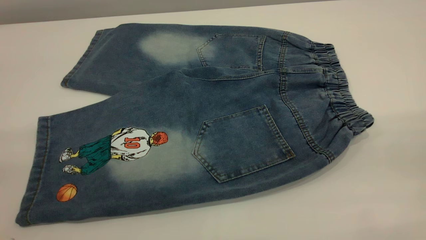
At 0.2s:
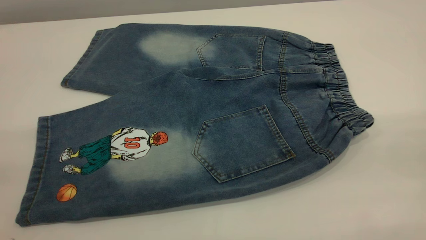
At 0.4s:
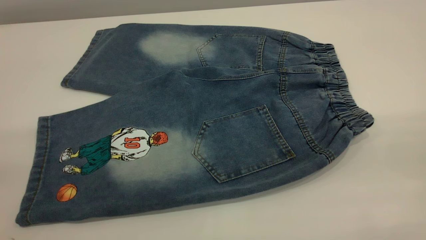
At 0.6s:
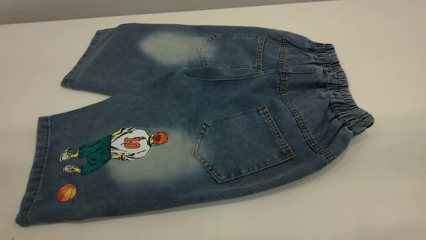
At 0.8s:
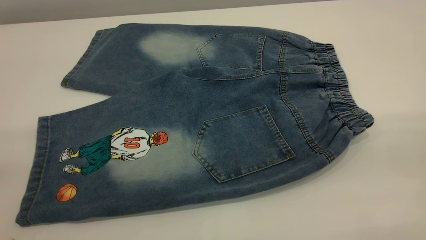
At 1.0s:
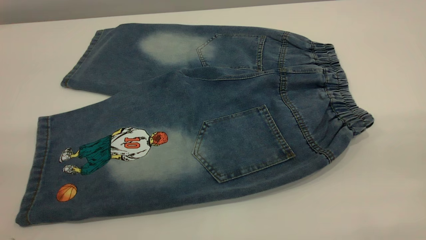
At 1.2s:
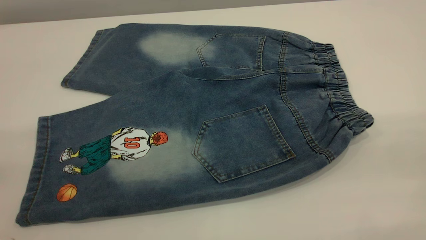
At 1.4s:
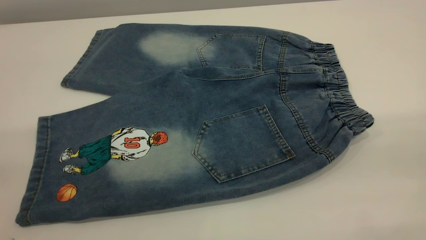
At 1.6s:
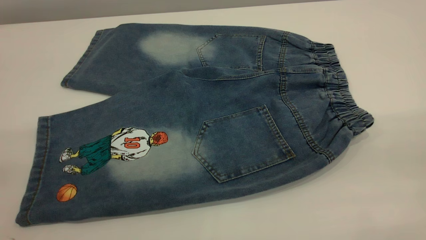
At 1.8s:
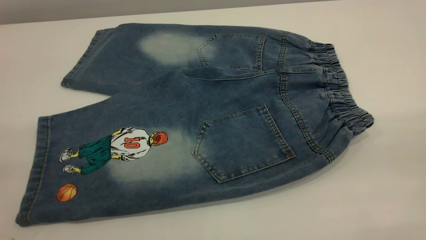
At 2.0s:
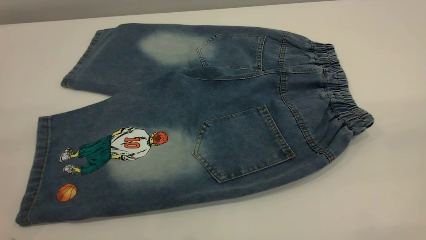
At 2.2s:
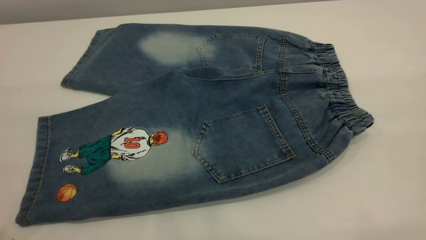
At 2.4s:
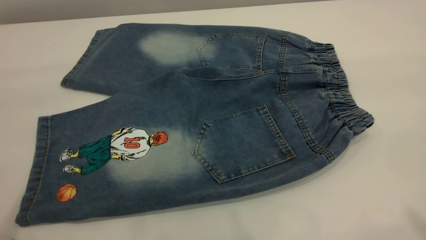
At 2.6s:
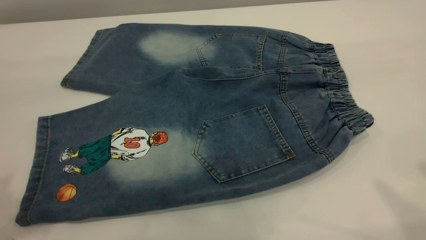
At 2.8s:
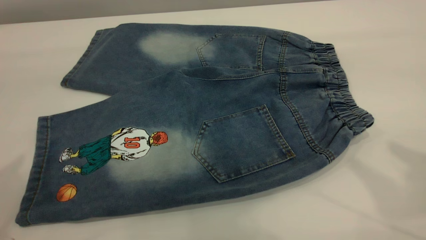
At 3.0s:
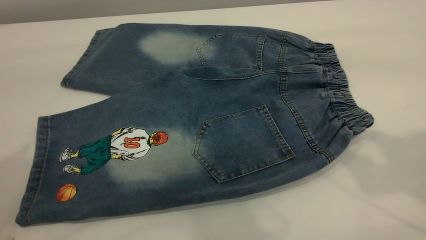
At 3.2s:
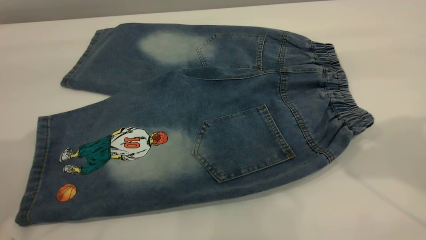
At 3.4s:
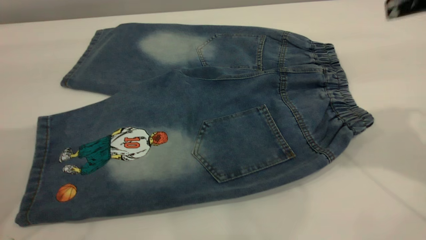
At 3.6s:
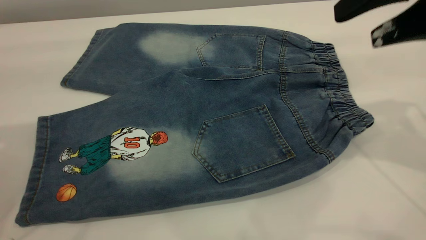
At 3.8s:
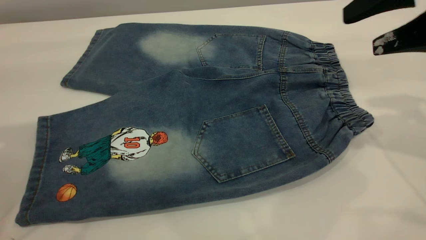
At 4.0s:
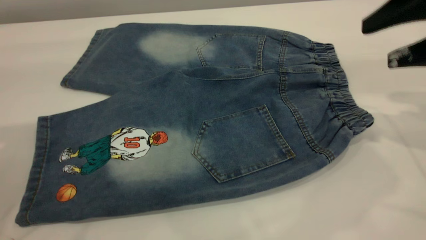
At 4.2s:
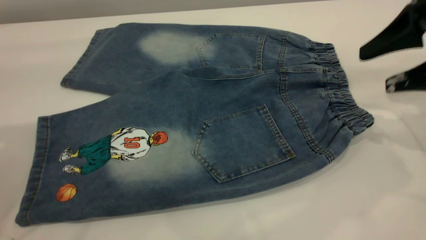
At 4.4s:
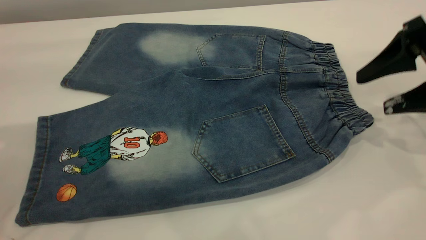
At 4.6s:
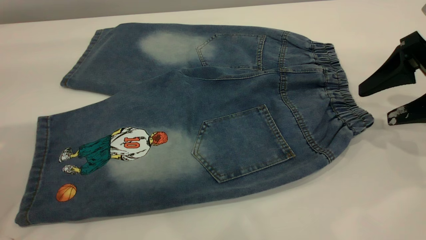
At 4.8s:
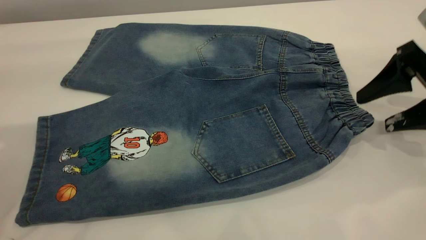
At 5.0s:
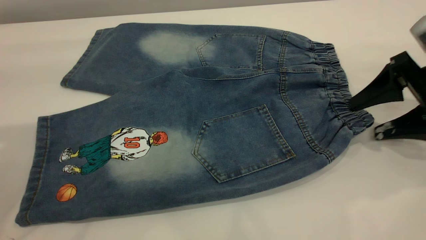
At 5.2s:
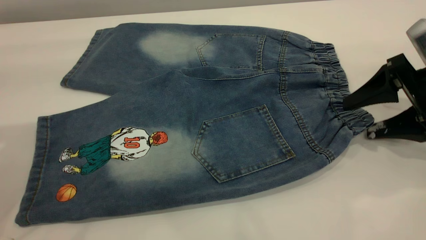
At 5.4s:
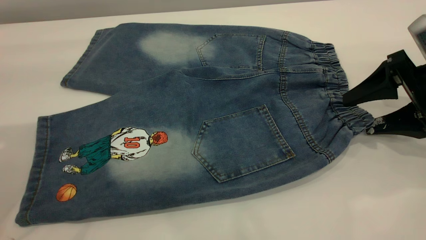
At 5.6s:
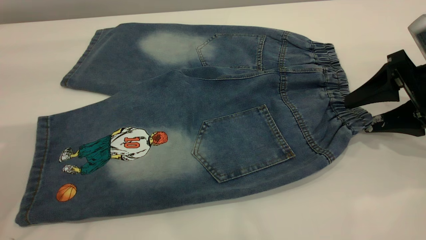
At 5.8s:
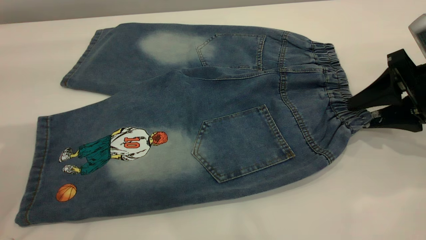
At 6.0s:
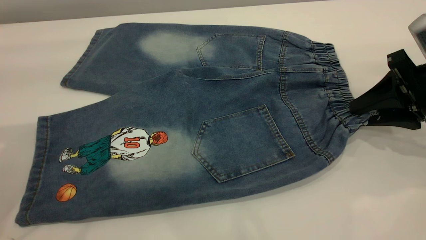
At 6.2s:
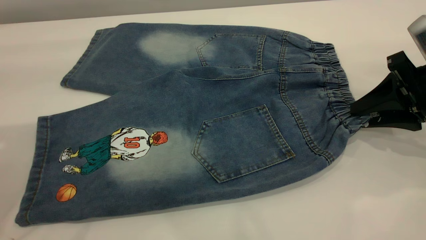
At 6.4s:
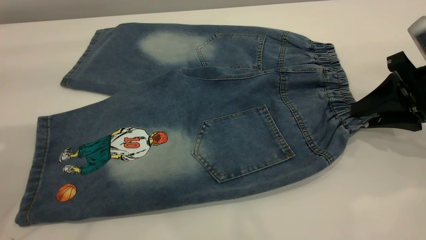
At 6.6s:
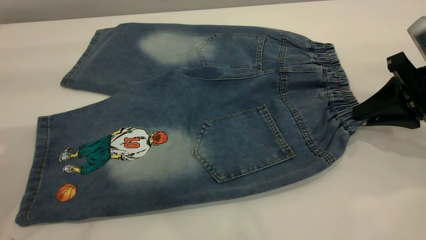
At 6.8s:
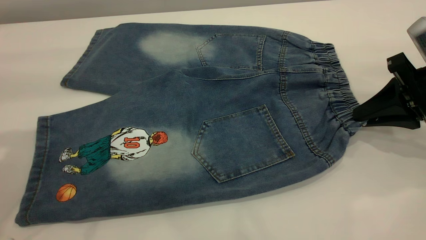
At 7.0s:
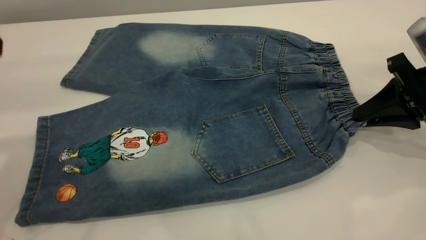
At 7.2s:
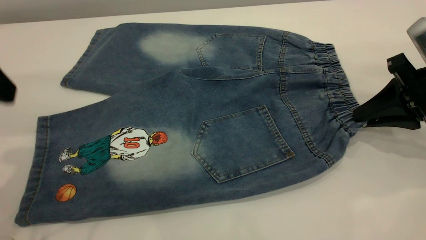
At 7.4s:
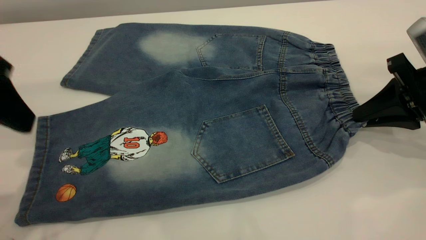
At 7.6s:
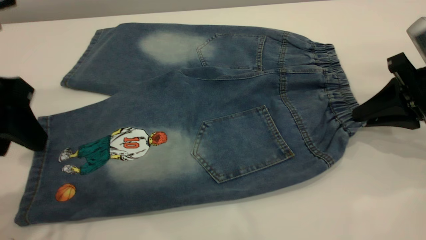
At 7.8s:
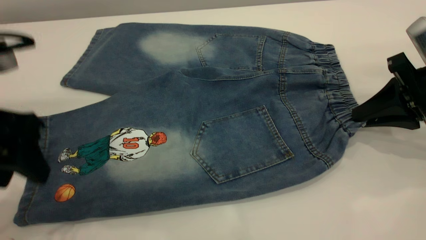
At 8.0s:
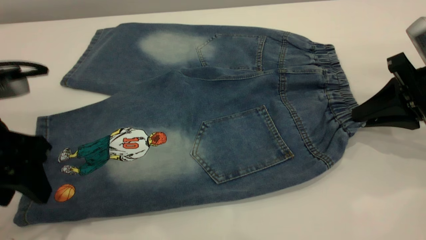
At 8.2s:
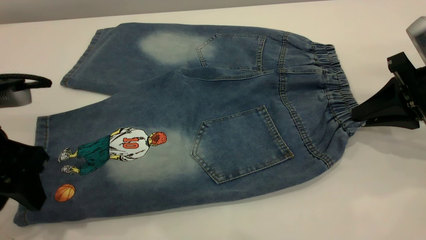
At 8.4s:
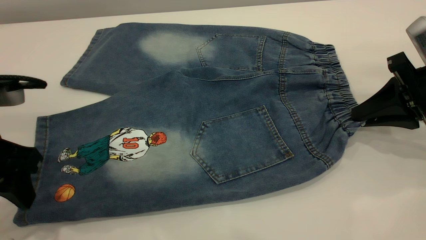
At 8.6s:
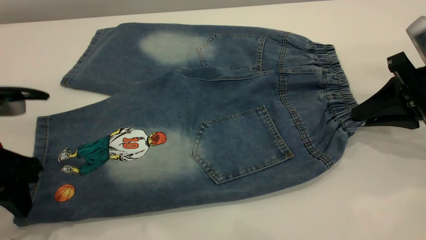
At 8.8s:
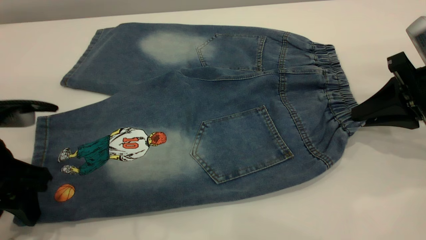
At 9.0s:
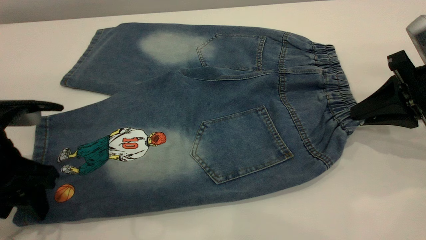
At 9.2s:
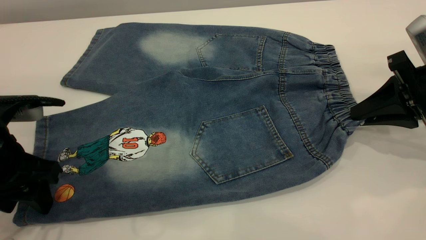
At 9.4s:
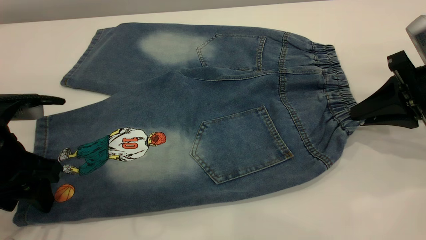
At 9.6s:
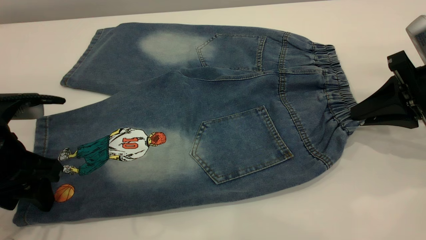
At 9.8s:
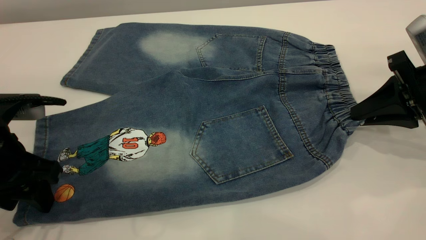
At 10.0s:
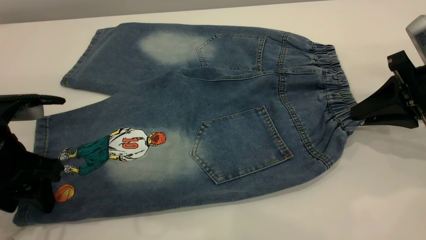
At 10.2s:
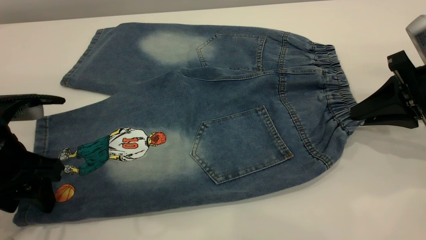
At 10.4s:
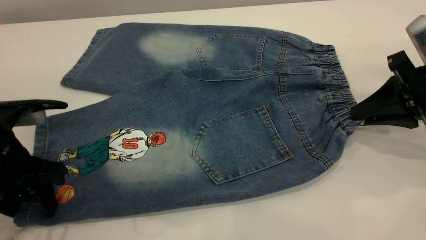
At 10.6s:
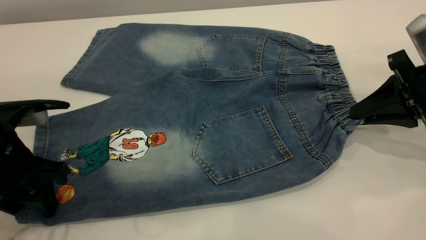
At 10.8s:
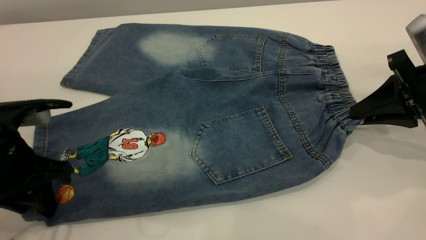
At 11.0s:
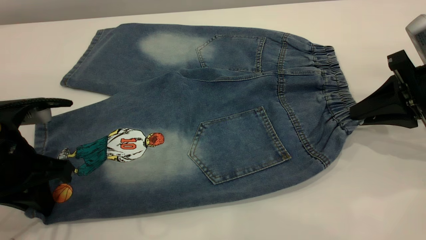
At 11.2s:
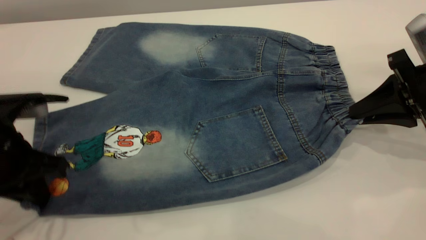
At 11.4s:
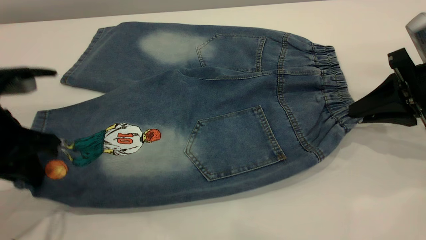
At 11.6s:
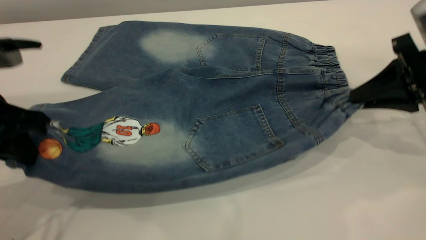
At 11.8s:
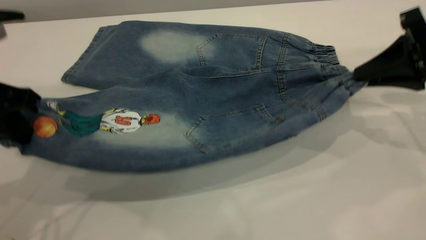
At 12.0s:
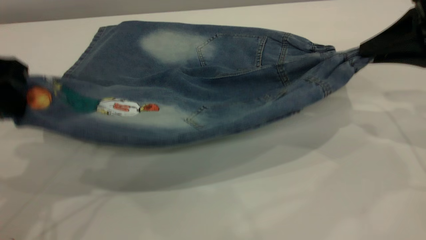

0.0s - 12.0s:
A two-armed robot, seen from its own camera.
0.0s - 1.6s: Neither gripper changes place.
1.6s - 3.0s: The two grippers go some 20 cm forward.
3.0s - 4.4s: The left gripper shifts roughly 5 cm downward. Meanwhile the right gripper goes about 20 cm downward.
4.4s - 6.0s: The right gripper closes its fingers.
6.0s - 7.6s: The left gripper heads downward, covering approximately 10 cm.
7.6s - 9.0s: The left gripper is displaced downward by about 10 cm.
9.0s - 10.4s: The two grippers keep their place.
10.4s - 12.0s: The left gripper moves upward, approximately 15 cm, and closes. Meanwhile the right gripper shifts approximately 10 cm upward.

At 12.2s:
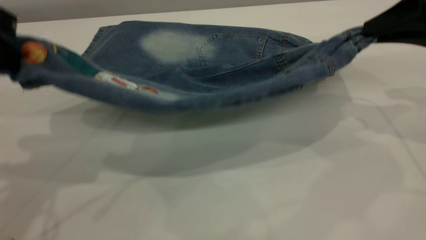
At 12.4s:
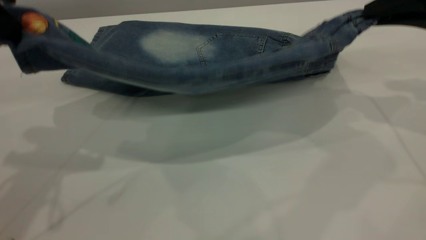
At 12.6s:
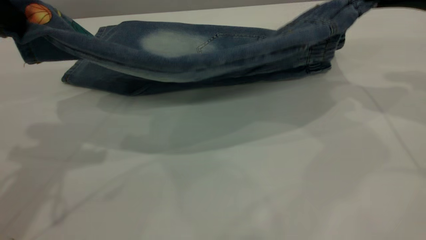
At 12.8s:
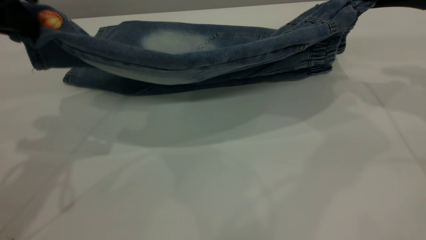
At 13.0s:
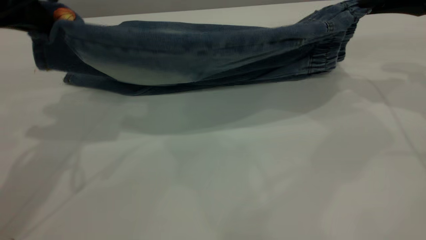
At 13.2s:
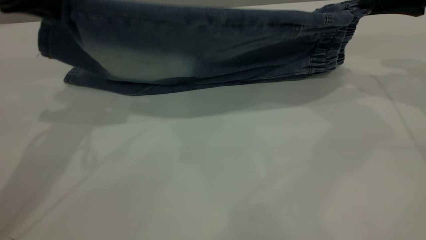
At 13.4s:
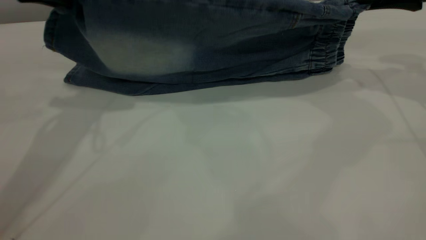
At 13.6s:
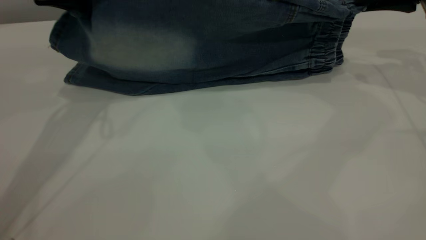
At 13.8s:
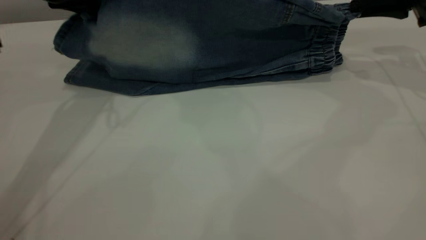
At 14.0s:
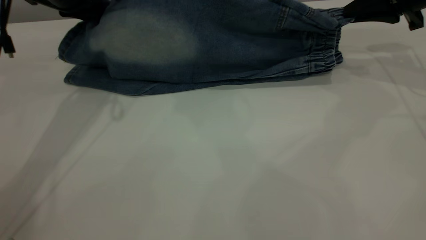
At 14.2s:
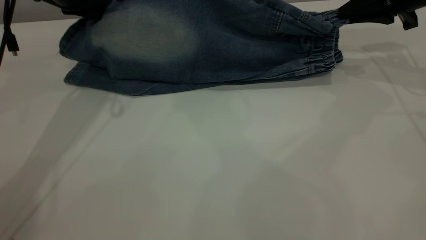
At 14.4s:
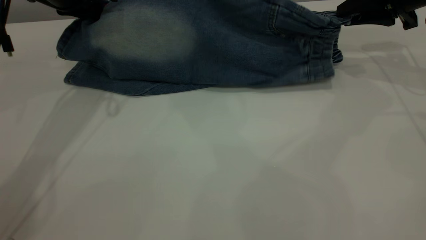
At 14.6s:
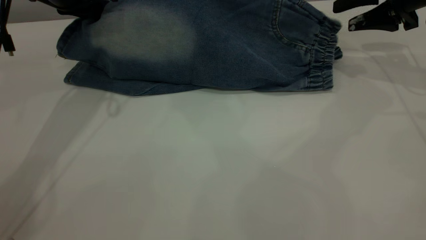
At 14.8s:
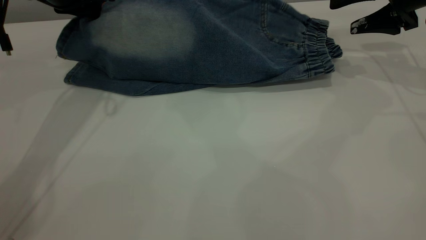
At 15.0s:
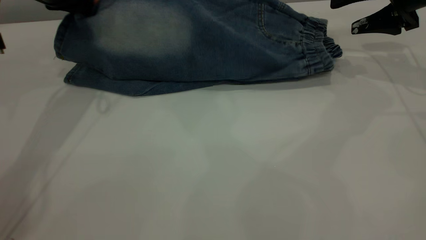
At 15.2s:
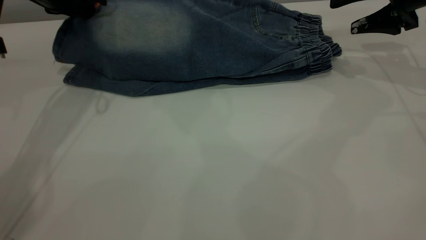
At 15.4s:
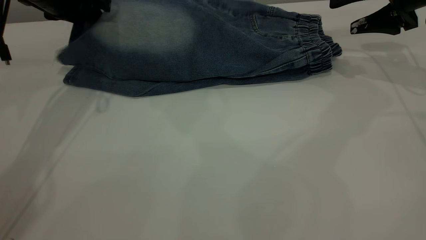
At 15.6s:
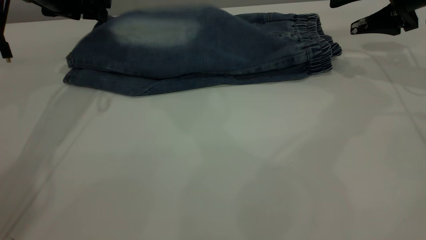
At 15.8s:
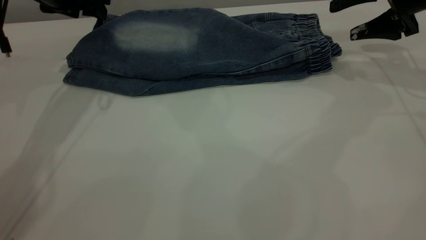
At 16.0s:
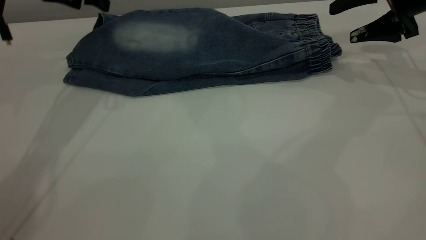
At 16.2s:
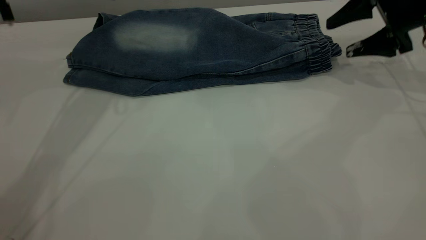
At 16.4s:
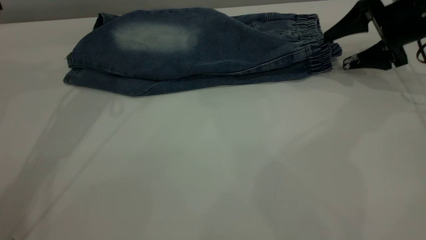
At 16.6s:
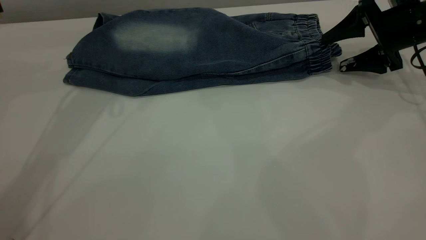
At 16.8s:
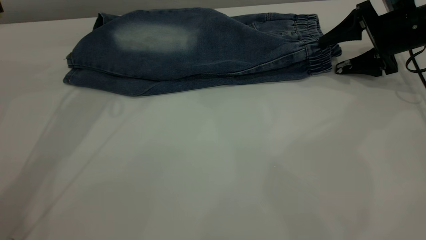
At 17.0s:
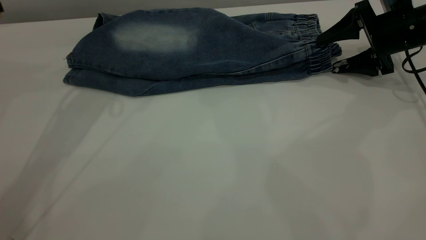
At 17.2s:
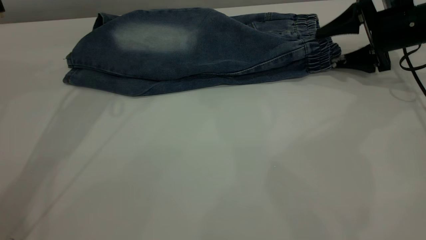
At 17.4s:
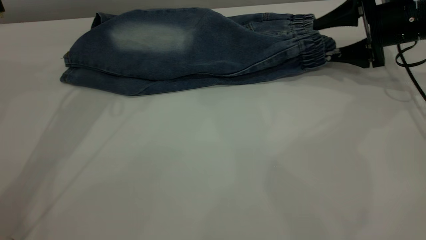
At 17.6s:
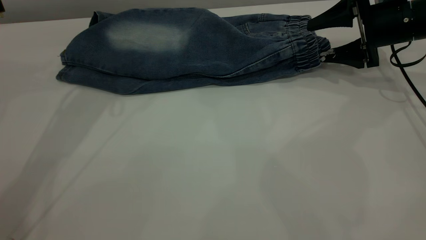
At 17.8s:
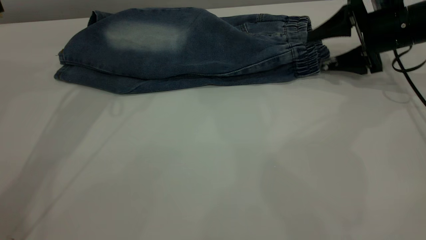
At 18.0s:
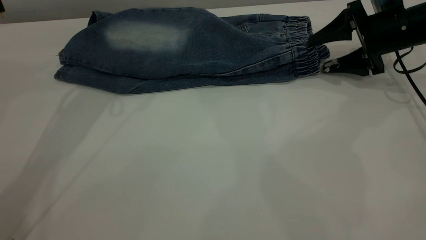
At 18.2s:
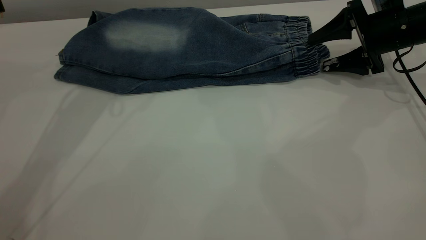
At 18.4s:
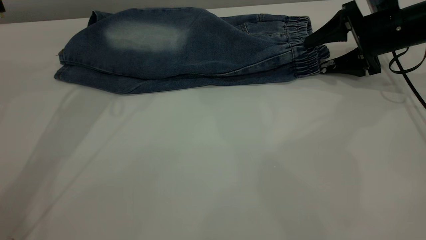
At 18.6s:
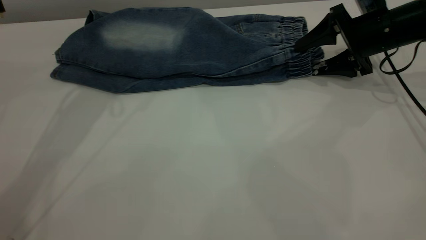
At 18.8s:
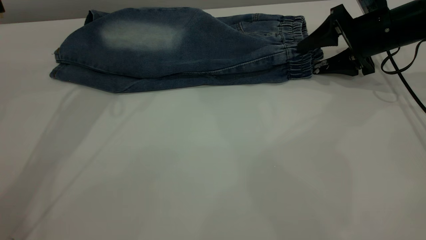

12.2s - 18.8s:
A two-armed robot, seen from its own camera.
Step, 12.2s - 15.6s: Fold the bottom of the pants upward.
12.2s - 13.8s: The right gripper shifts about 10 cm forward. The left gripper goes some 15 cm forward.
13.8s - 15.4s: The left gripper moves roughly 5 cm, and opens its fingers; the right gripper opens its fingers.
15.4s - 17.2s: The left gripper heads upward, covering approximately 10 cm. The right gripper goes approximately 5 cm downward.
17.2s - 18.8s: There are only small adjustments of the grippers.
